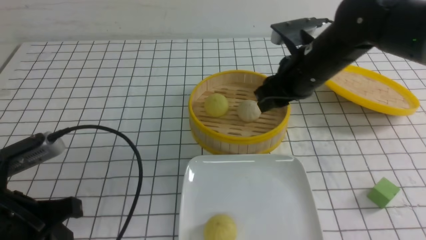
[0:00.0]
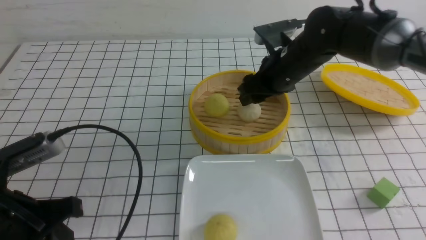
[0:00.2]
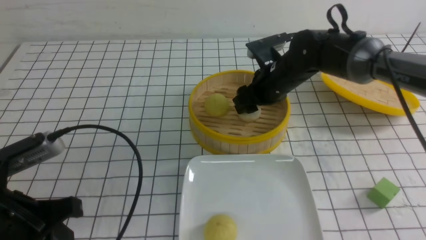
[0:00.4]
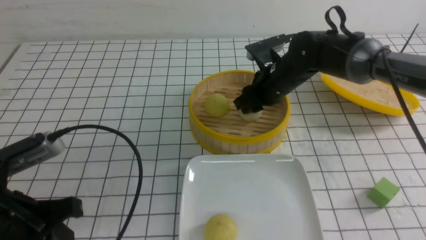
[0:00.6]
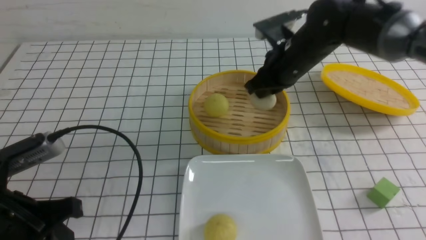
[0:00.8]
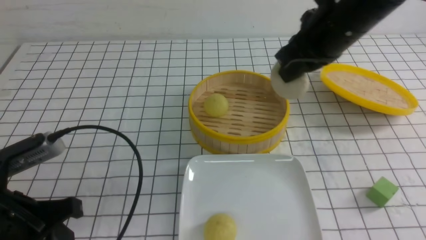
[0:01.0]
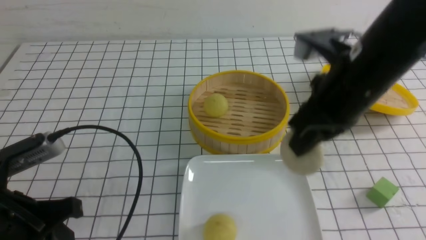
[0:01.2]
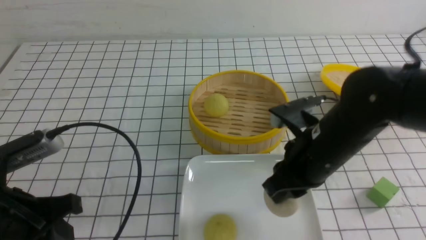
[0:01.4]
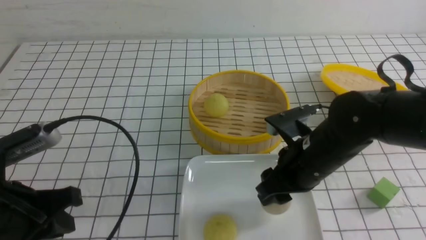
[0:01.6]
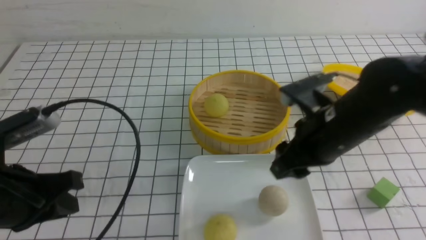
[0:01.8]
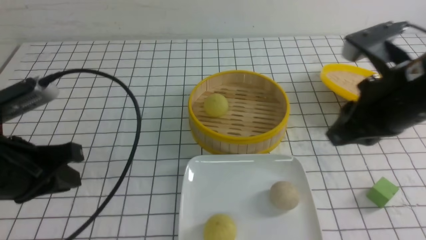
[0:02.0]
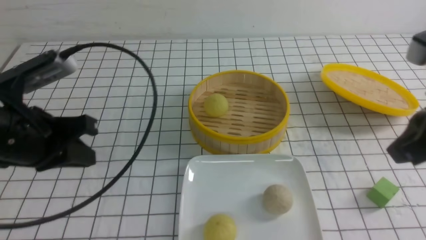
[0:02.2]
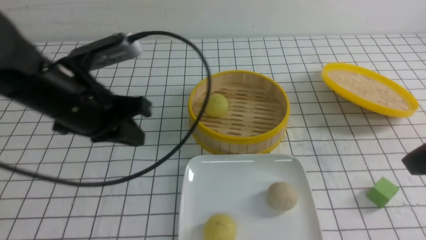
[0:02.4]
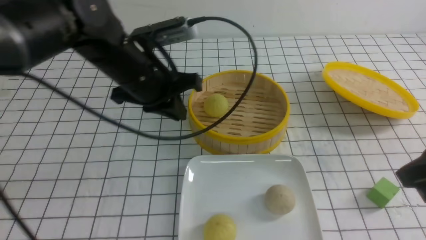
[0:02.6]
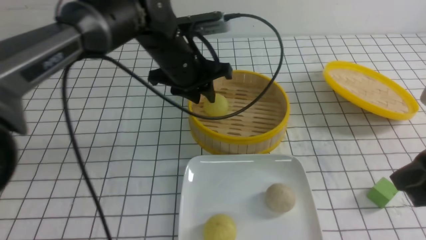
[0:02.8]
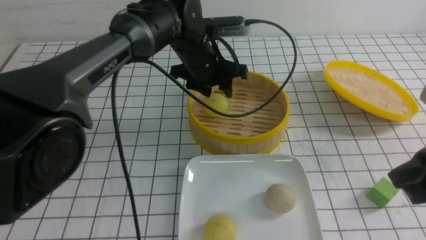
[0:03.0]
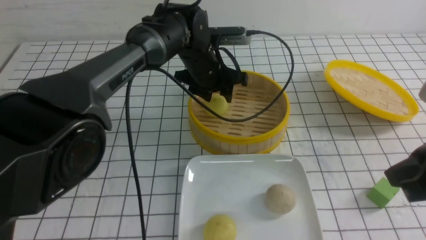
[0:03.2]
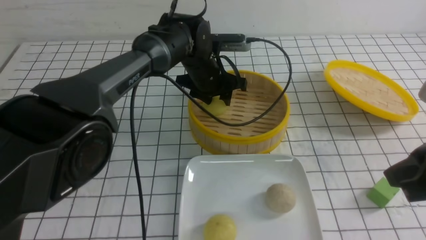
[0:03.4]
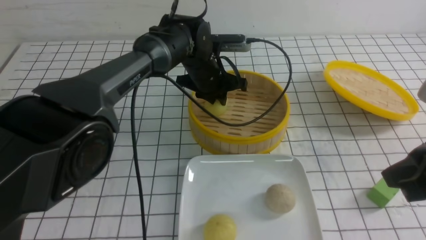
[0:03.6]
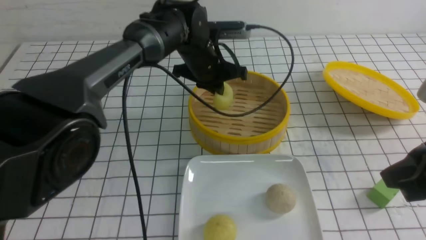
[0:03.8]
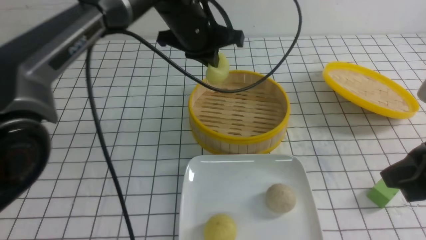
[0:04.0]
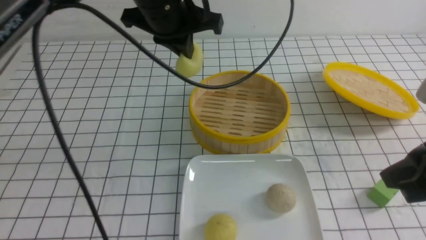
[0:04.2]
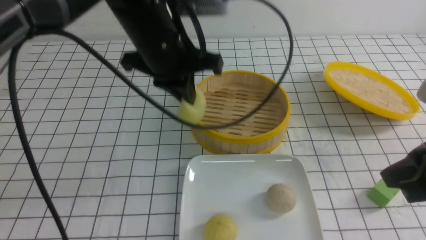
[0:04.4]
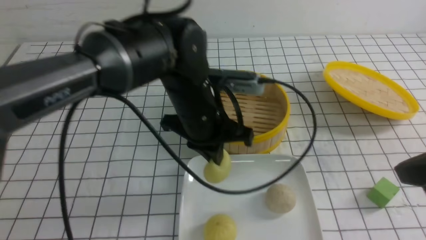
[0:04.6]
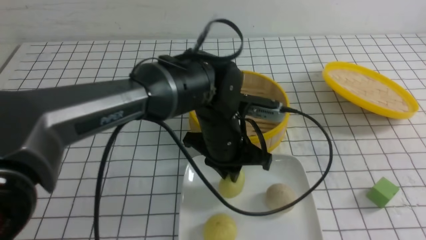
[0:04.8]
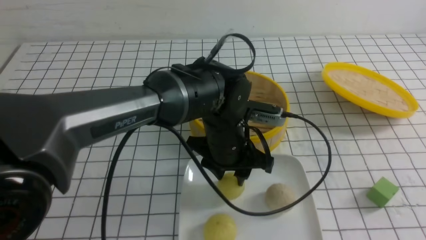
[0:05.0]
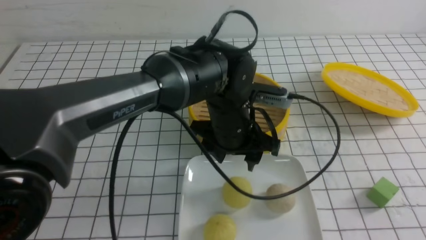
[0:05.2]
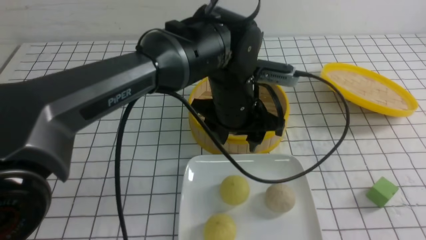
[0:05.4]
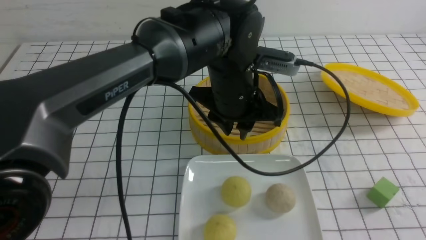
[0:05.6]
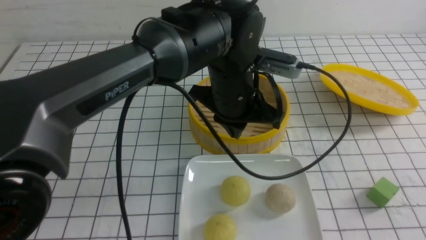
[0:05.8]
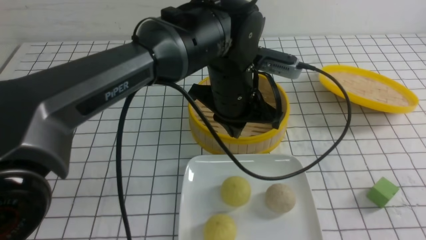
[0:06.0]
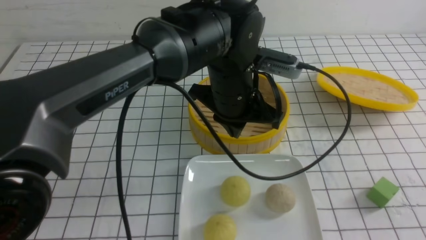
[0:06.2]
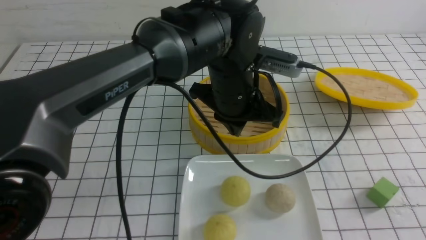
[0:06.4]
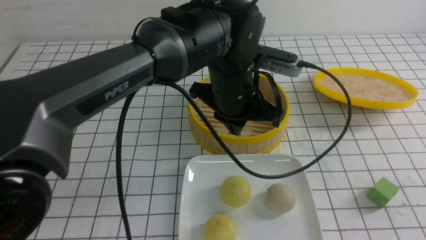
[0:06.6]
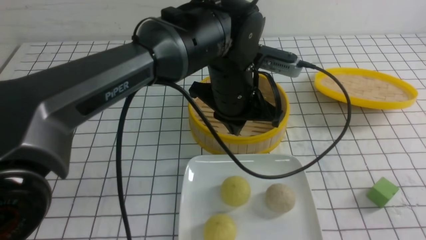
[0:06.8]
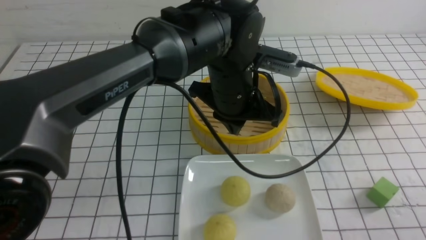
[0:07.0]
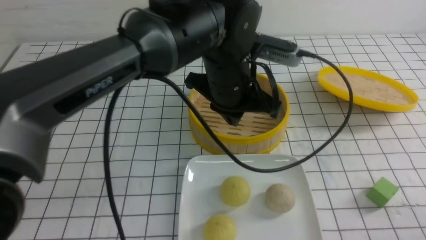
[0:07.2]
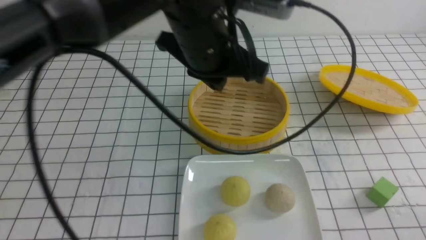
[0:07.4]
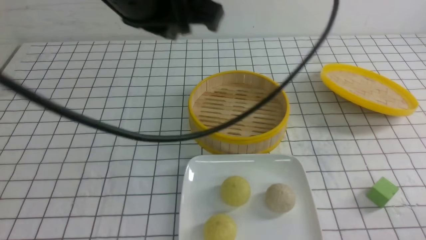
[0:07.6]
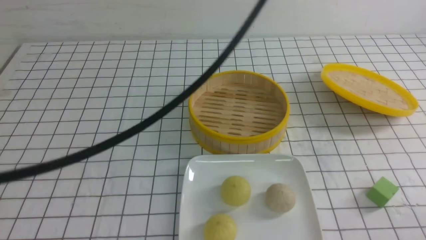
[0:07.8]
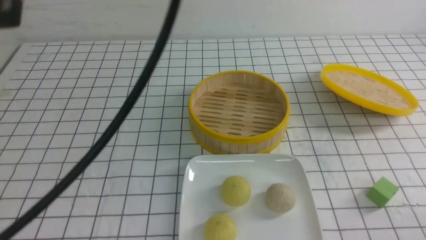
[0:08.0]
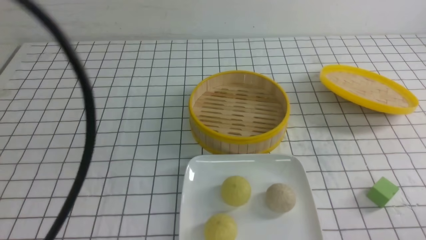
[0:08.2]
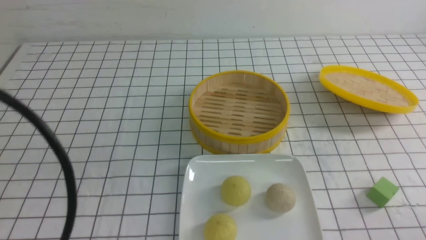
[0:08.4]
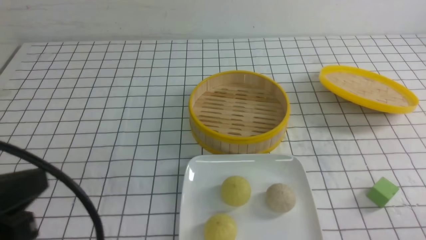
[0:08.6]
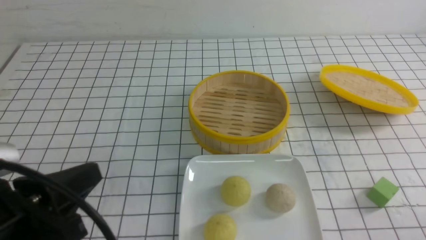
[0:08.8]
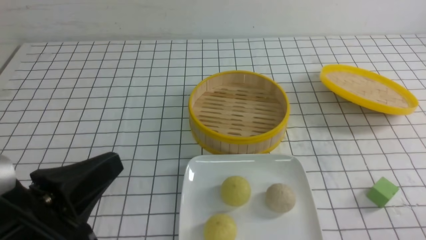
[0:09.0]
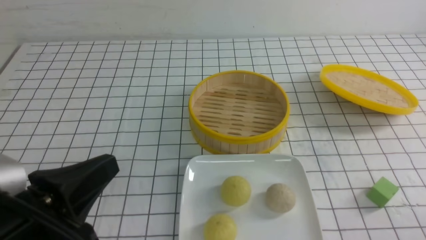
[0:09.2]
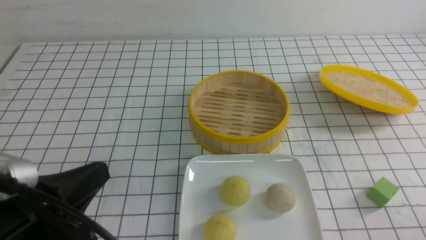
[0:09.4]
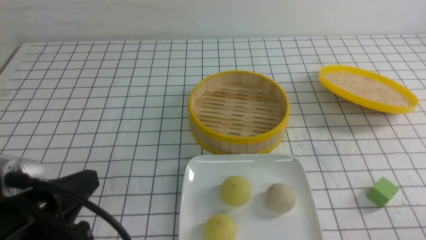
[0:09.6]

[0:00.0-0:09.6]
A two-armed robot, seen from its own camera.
Step, 0:00.8 to 0:01.6: use the right arm to put the steamed stuffed bun into the plate.
Step, 0:02.0 to 0:03.6: use the left arm to grab the steamed stuffed bun that is closest to it.
Step, 0:03.8 to 0:05.4: use the left arm to put the steamed stuffed bun into the plate.
0:00.0 to 0:01.6: The right gripper travels backward by roughly 10 cm, and closes, then opens again.
0:01.6 to 0:03.2: The left gripper heads forward and to the right, covering approximately 35 cm, and opens its fingers. The right gripper travels to the right, backward and upward by about 15 cm, and closes its fingers.
0:03.2 to 0:04.8: The right gripper travels backward by roughly 10 cm. Meanwhile the left gripper travels backward by some 15 cm, and closes its fingers.
0:04.8 to 0:06.4: The right gripper heads downward, covering approximately 10 cm, while the left gripper travels upward by roughly 5 cm, and closes its fingers.
0:06.4 to 0:08.0: The left gripper heads to the left, upward and backward, covering about 35 cm; the right gripper moves downward, some 10 cm.
0:08.0 to 0:09.6: The left gripper shifts some 20 cm downward.

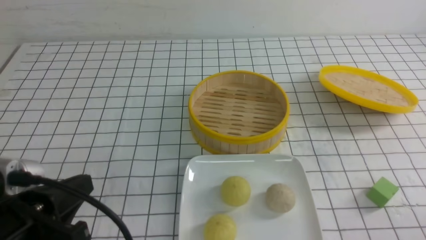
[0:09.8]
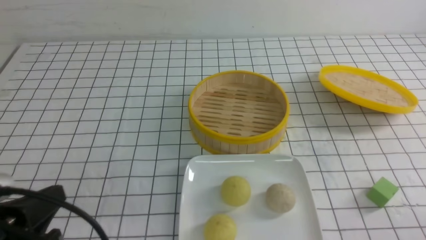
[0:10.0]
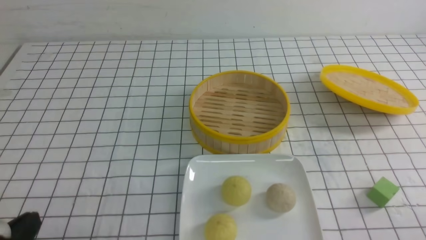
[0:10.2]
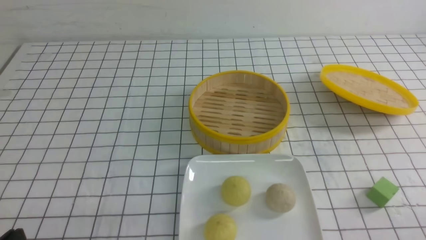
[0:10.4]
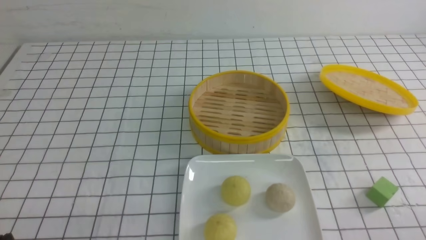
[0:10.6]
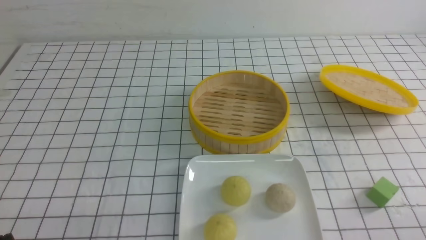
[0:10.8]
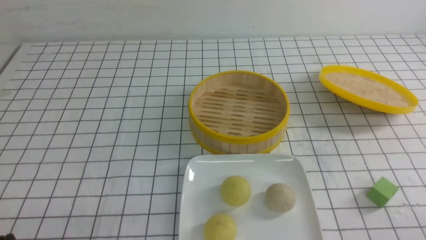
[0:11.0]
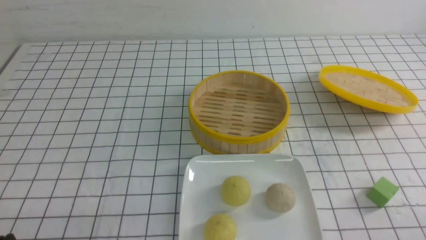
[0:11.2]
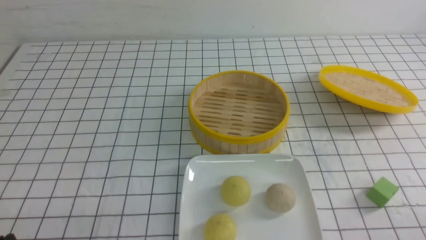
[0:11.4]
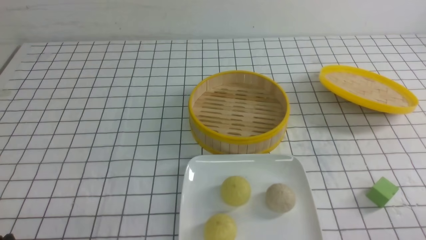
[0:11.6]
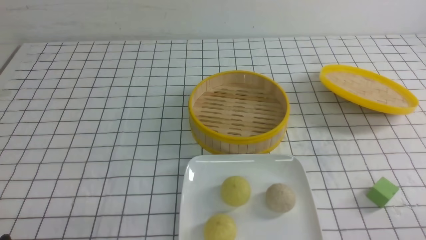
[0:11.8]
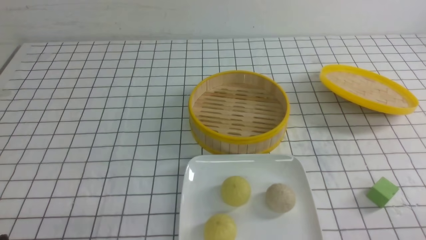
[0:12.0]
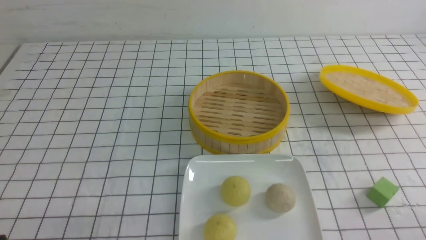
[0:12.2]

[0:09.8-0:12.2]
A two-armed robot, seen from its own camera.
0:09.8 to 0:11.0: The left gripper is displaced downward and to the left by roughly 10 cm.
